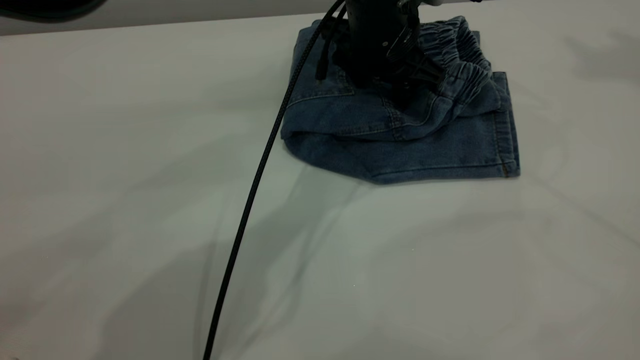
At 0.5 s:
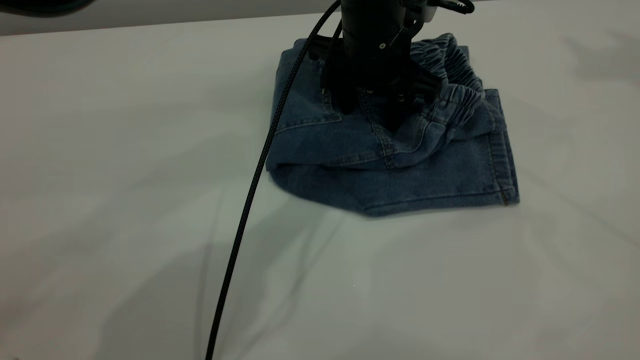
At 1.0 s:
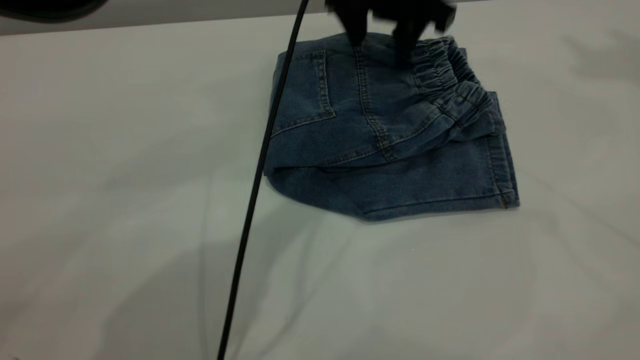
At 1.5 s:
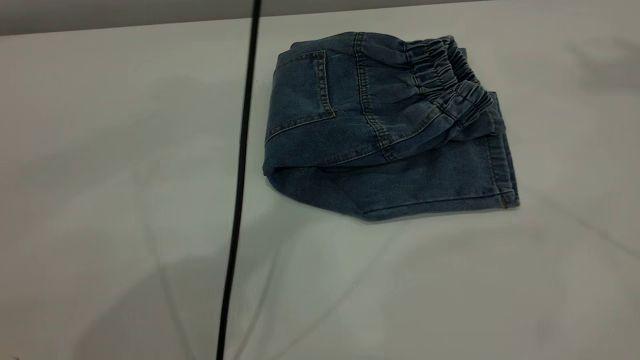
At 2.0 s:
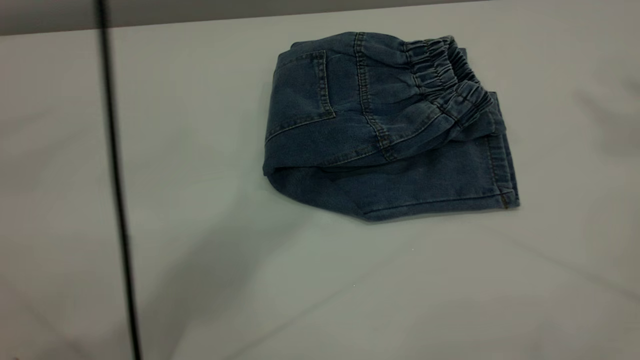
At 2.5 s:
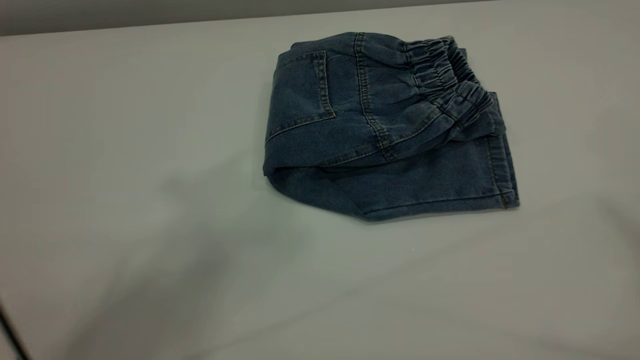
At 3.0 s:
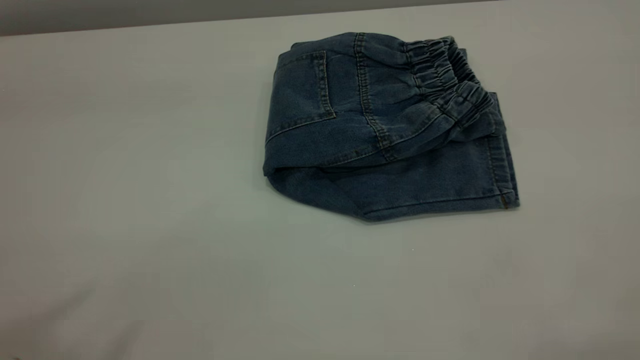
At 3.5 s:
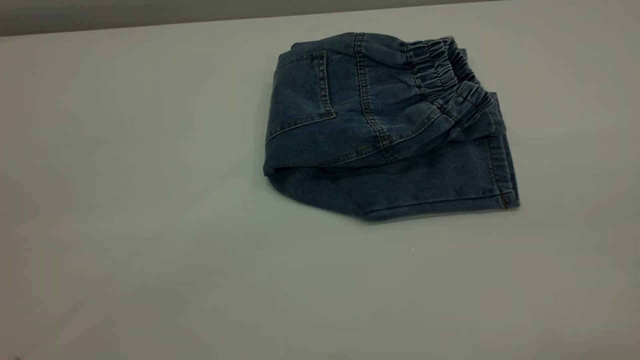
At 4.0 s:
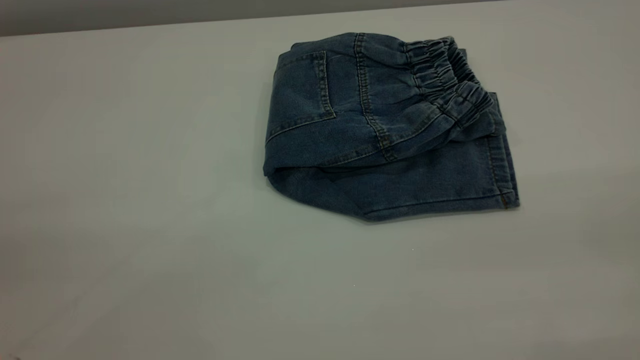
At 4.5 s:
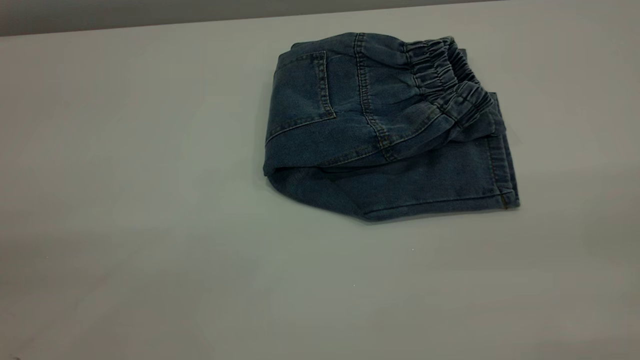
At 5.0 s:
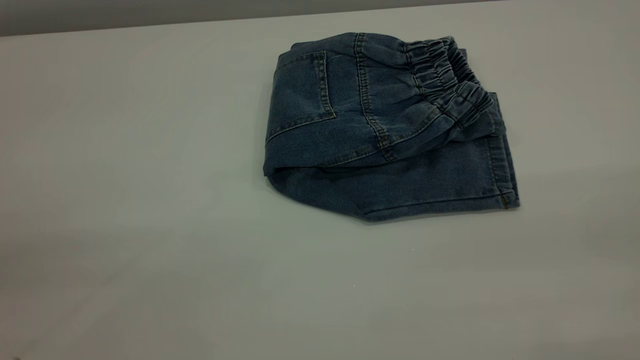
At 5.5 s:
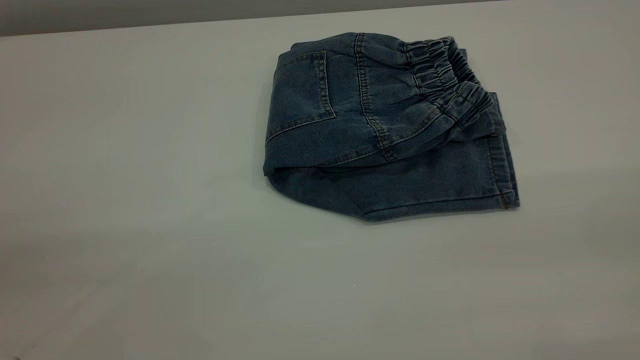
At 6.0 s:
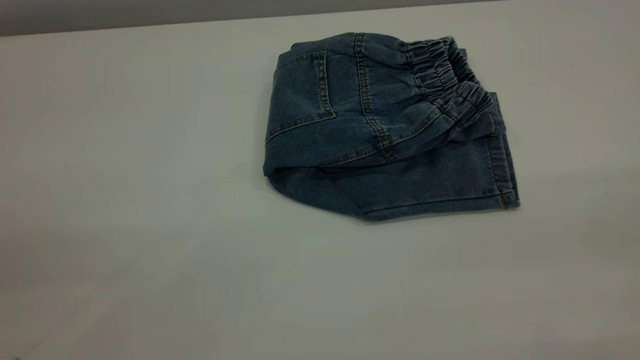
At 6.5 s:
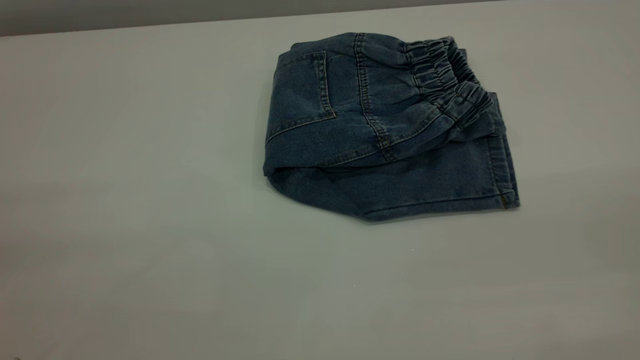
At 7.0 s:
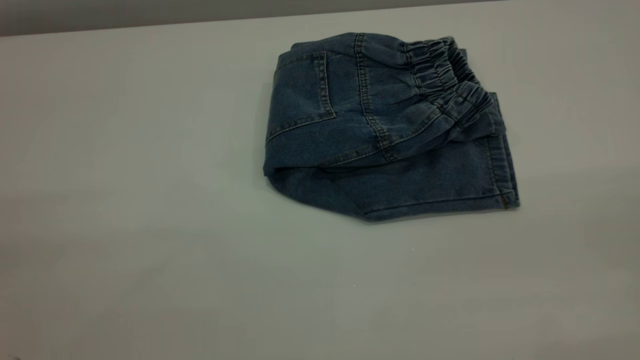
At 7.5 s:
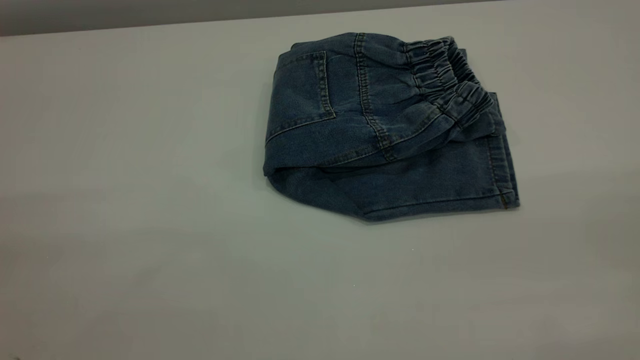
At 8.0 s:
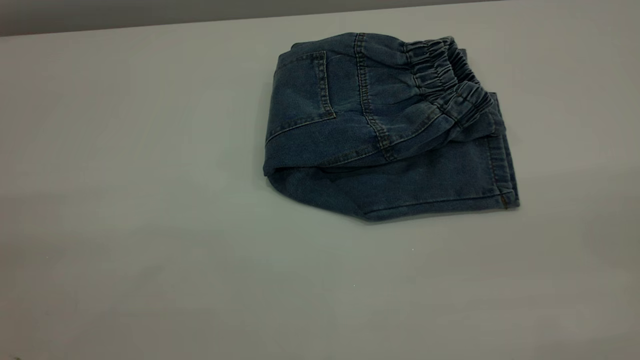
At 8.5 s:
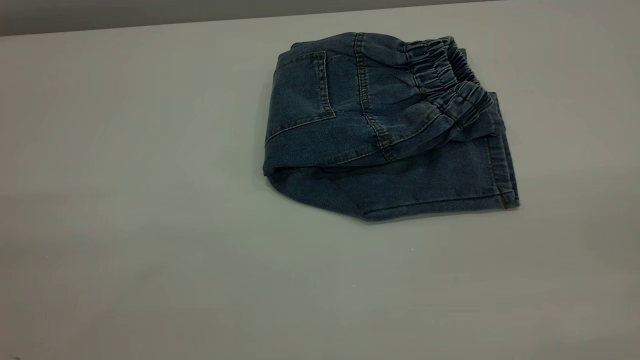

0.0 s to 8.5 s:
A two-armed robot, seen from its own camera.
0.0 to 2.0 s: The right gripper goes approximately 15 cm backward and upward. Meanwhile the left gripper moves upward, roughly 40 cm.
2.0 to 4.0 s: The left gripper is displaced backward, to the left and downward by approximately 50 cm.
